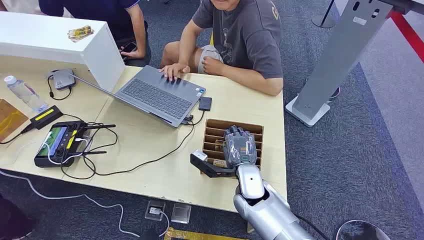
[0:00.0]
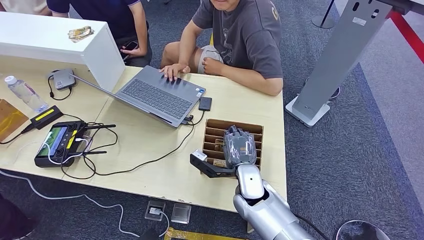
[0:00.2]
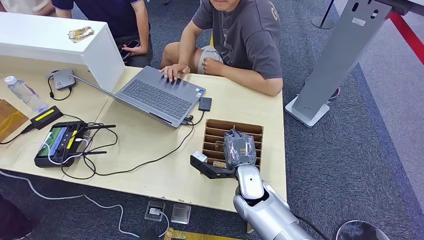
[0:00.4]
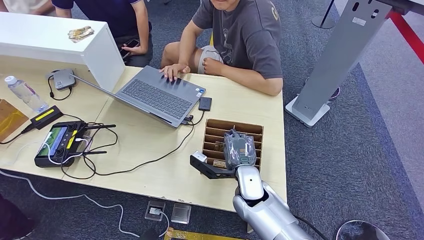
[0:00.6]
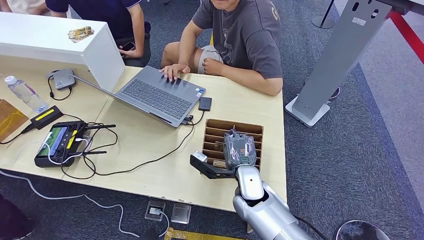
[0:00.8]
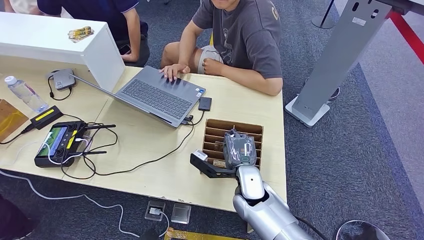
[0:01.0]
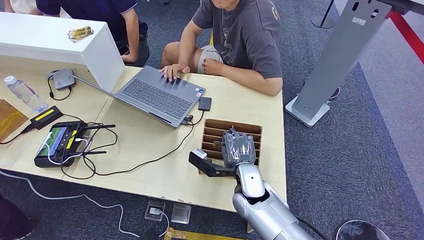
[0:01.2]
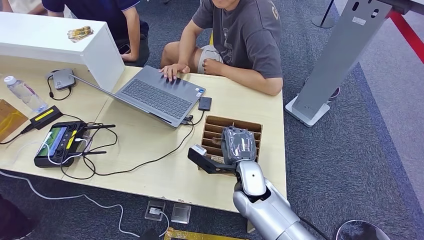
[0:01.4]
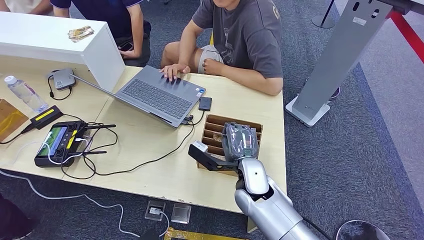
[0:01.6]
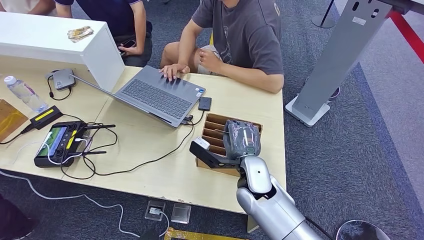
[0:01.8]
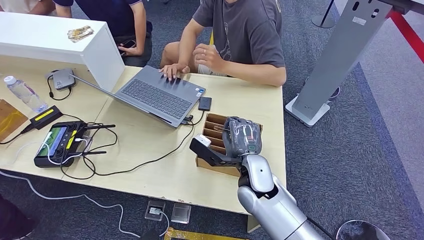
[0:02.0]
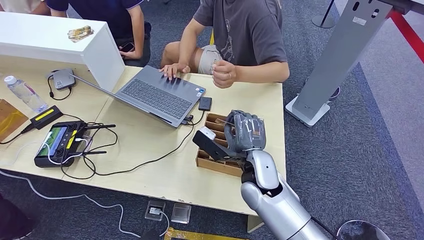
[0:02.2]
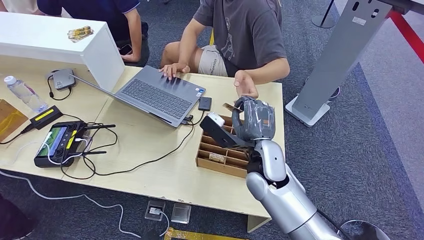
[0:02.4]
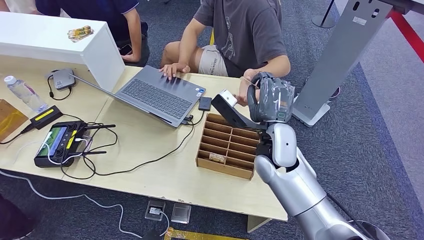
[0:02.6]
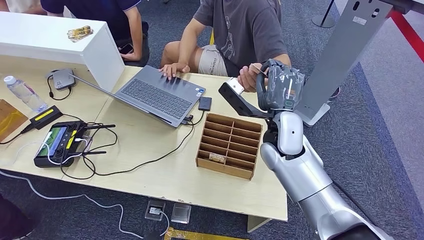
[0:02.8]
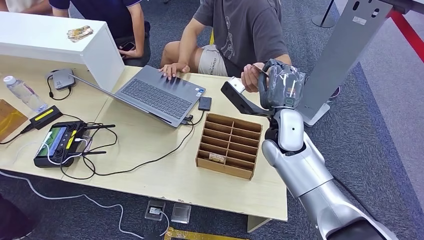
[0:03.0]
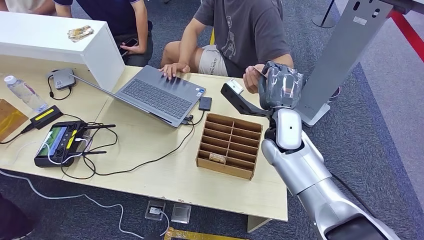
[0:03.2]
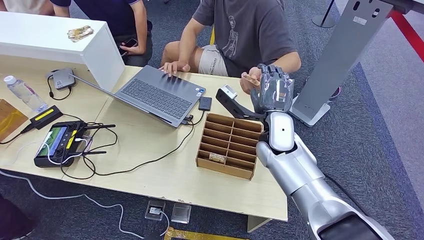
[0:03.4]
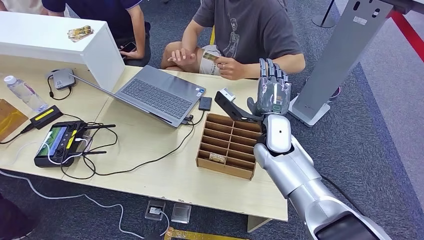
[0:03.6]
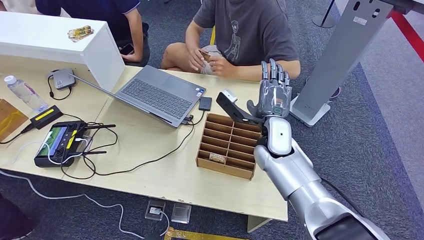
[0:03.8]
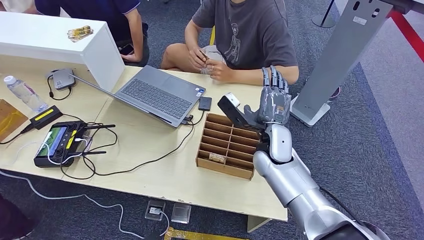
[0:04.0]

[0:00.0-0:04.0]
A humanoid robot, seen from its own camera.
Step, 0:00.0 to 0:02.0: Pick up the key card from the card box.
Step, 0:02.4 to 0:04.0: Hand the key card to the target.
0:01.4 to 0:02.6: The right hand goes some 10 cm upward.
0:02.6 to 0:04.0: The right hand shifts by some 5 cm.
